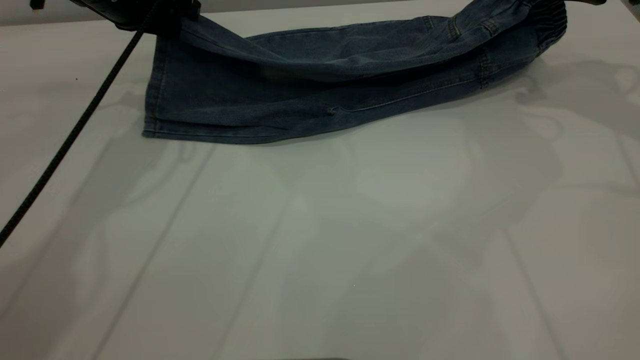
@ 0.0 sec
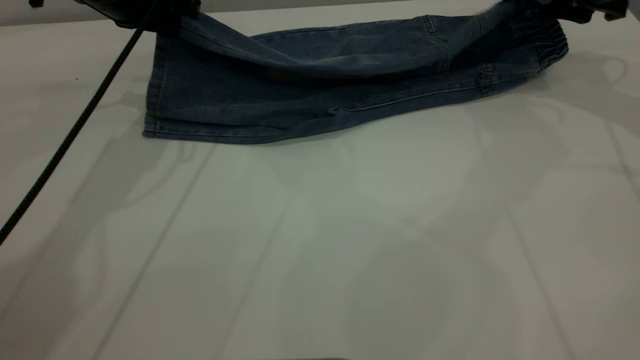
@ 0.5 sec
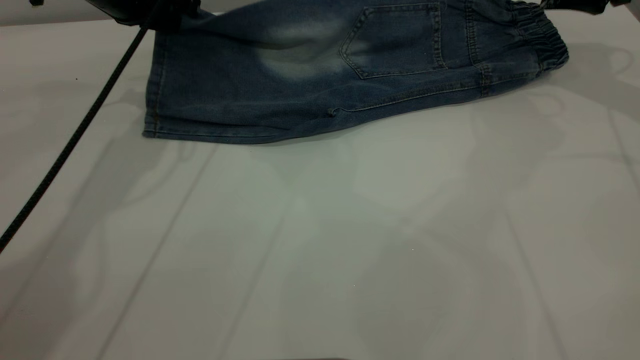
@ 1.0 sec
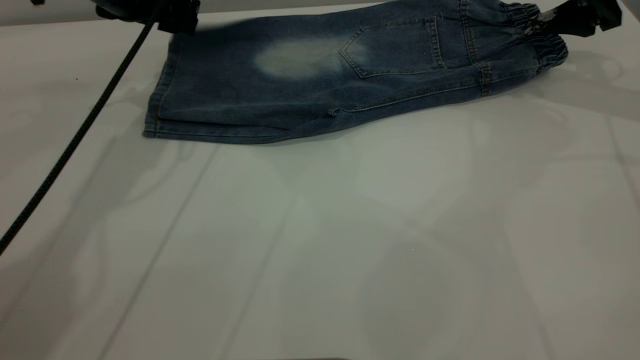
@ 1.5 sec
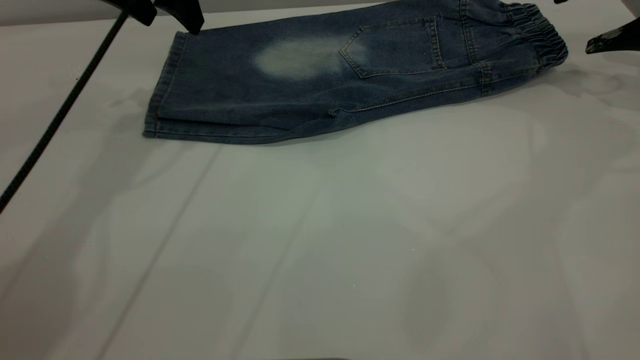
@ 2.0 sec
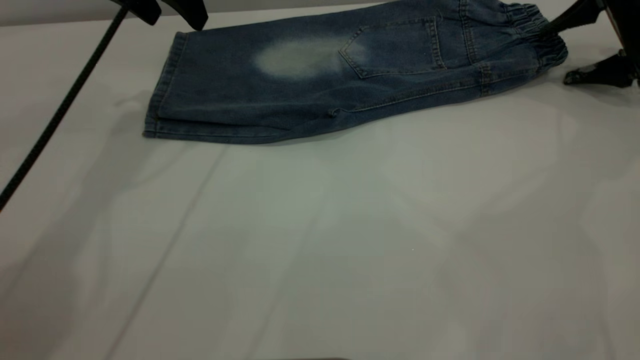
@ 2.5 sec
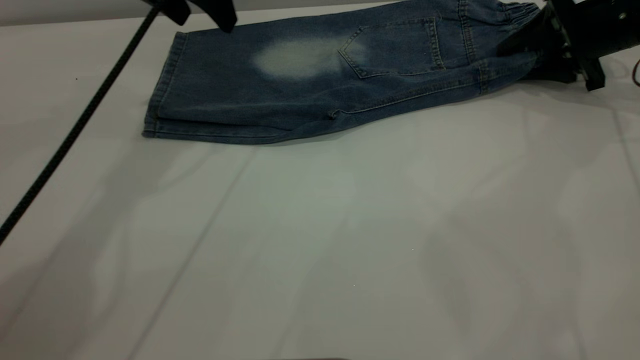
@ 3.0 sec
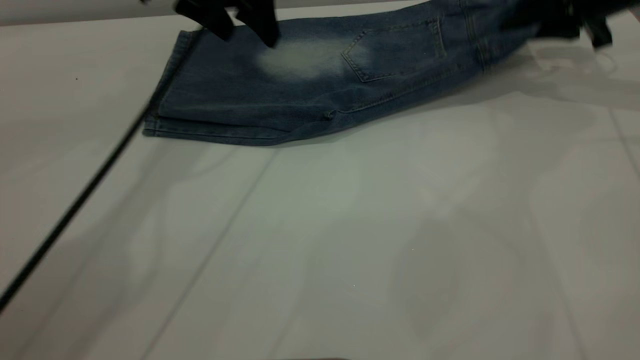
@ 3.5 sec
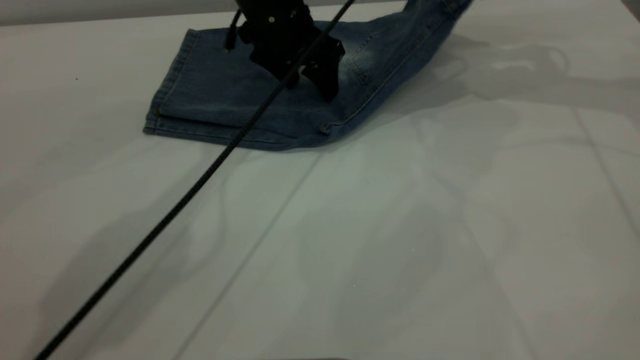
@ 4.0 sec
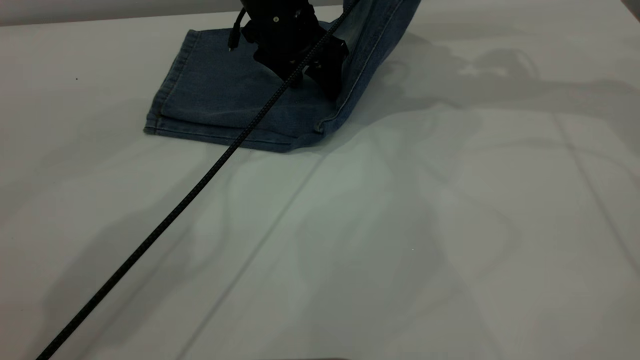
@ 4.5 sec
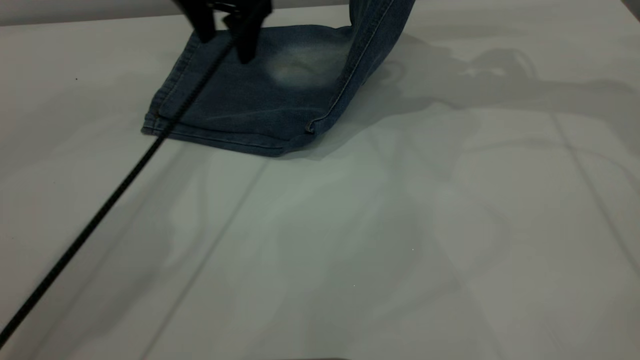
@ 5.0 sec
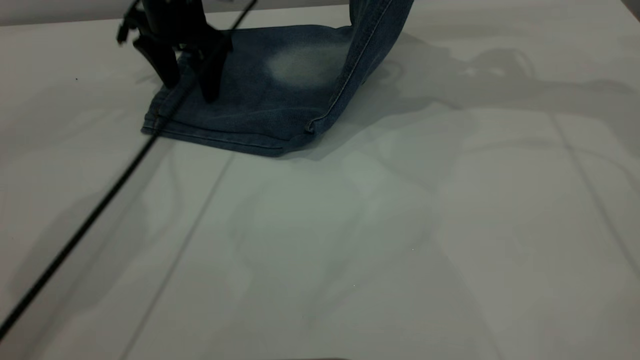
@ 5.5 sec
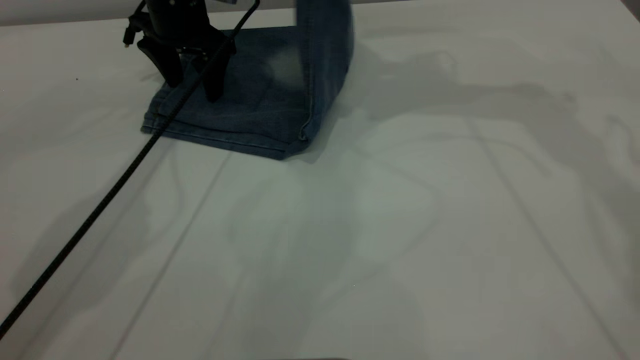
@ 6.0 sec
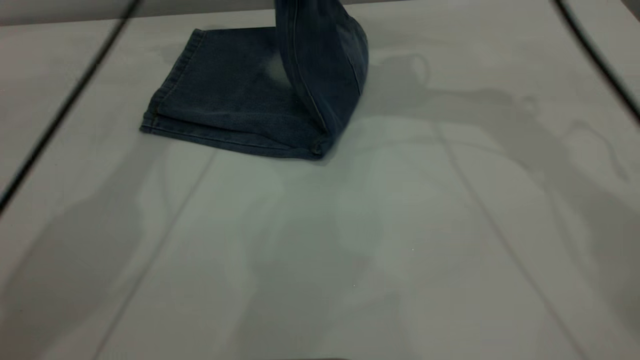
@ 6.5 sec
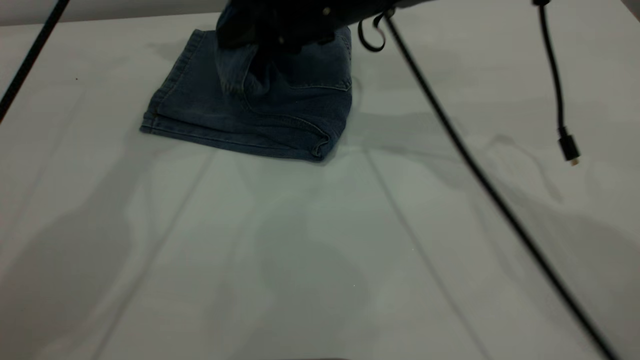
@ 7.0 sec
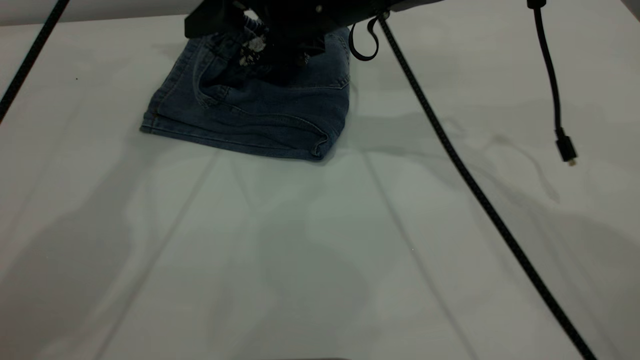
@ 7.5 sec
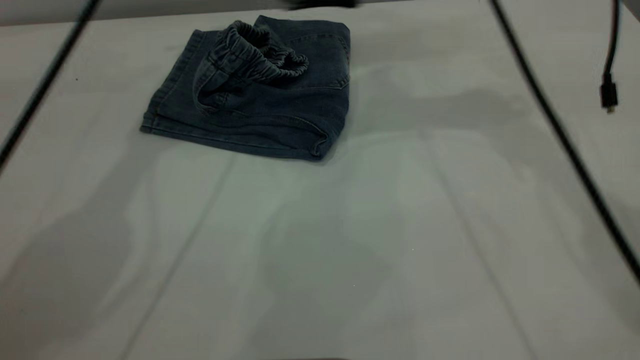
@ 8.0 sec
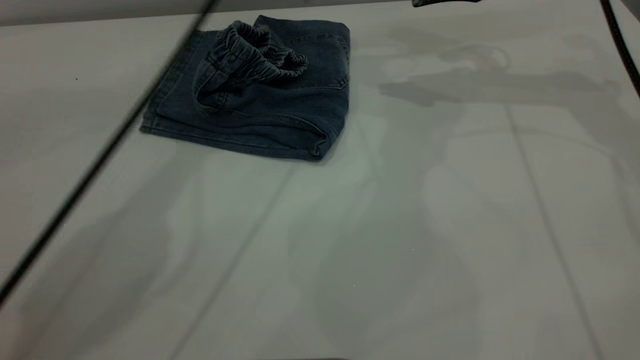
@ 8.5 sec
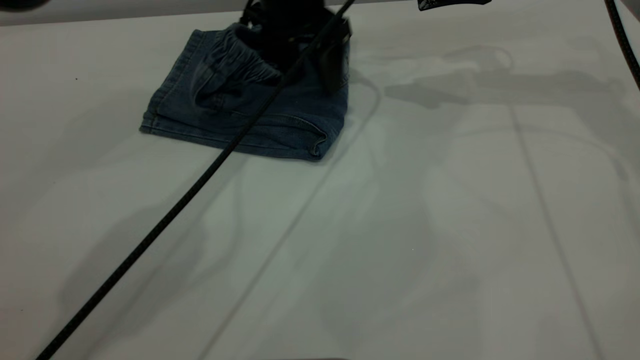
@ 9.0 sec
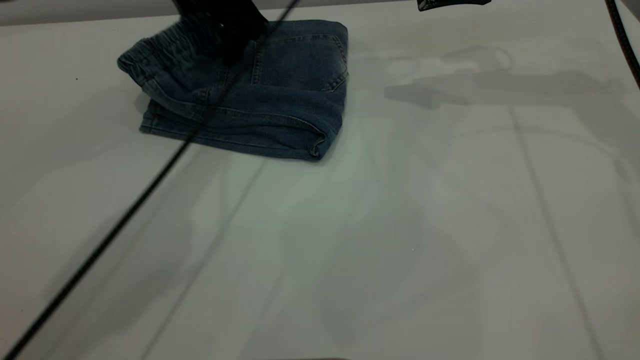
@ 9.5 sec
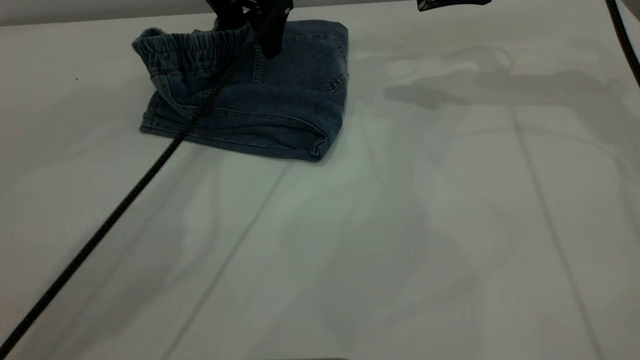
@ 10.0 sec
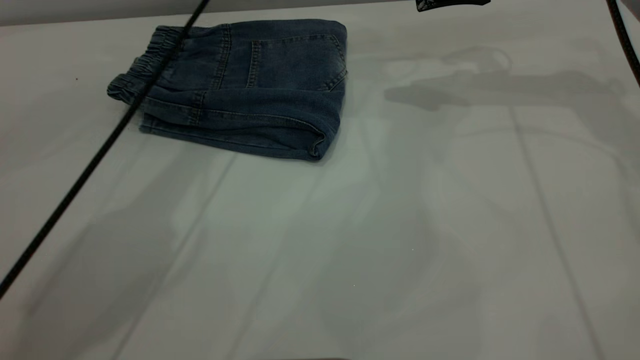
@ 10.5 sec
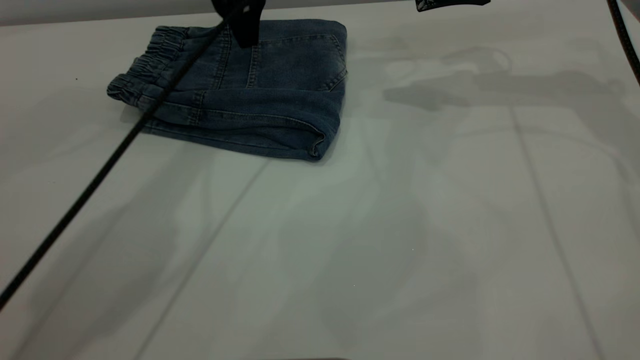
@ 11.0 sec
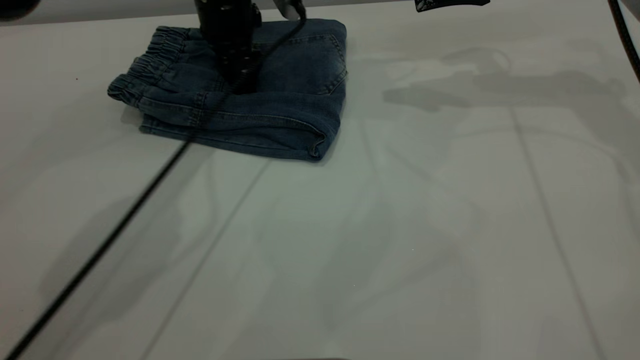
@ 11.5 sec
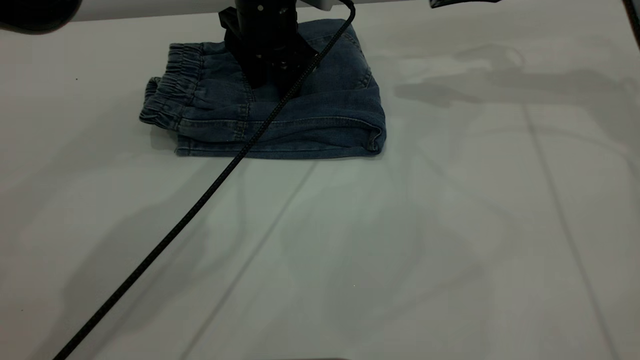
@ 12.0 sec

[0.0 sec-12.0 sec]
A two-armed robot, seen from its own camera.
Step, 0.0 sec to 3.0 sec: Fold the bottom of the pants upward.
Step, 3.5 sec to 8.5 sec: Fold your pants from right to left.
0.0 sec to 2.0 sec: The left gripper opens up. Meanwhile the right gripper shifts about 5 cm to the right, and opens its fingers.
2.0 sec to 4.0 sec: The left gripper moves to the right and downward, roughly 15 cm. Meanwhile the right gripper is displaced to the left and upward by approximately 15 cm, and closes up.
4.0 sec to 6.0 sec: The left gripper moves to the left, about 10 cm. The right gripper heads to the left and upward, covering about 15 cm.
6.0 sec to 8.0 sec: The right gripper is displaced downward by roughly 5 cm, and opens up; the left gripper shifts approximately 20 cm upward.
8.0 sec to 10.0 sec: The left gripper travels downward and to the right by approximately 15 cm. Meanwhile the right gripper is displaced to the right by approximately 10 cm.
10.0 sec to 12.0 sec: The left gripper moves downward, roughly 5 cm.

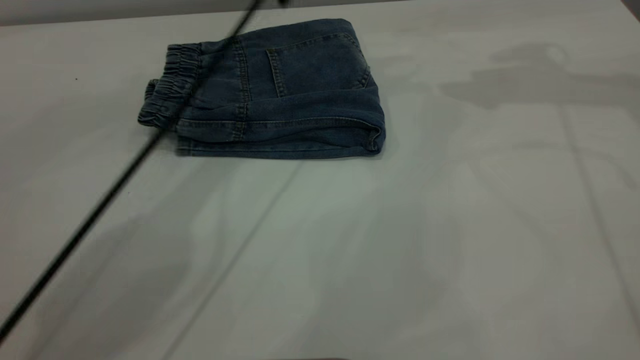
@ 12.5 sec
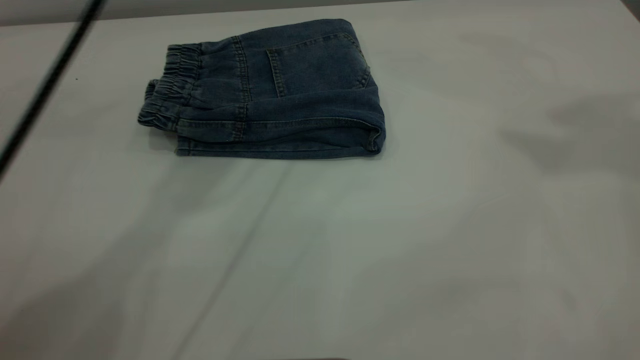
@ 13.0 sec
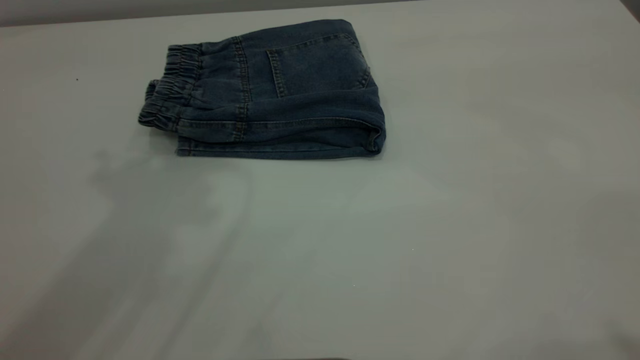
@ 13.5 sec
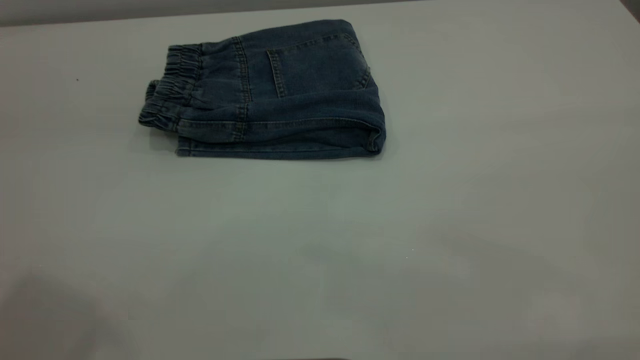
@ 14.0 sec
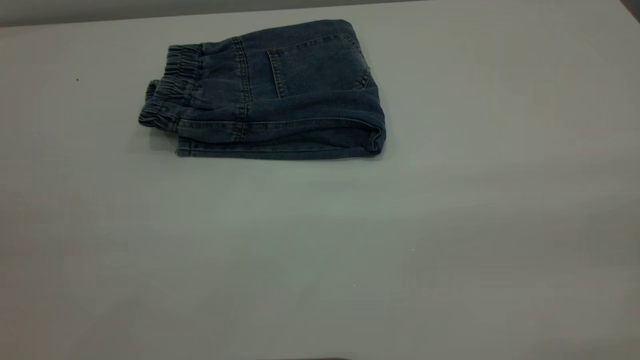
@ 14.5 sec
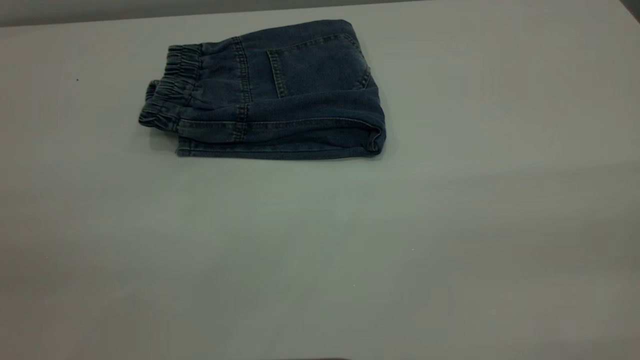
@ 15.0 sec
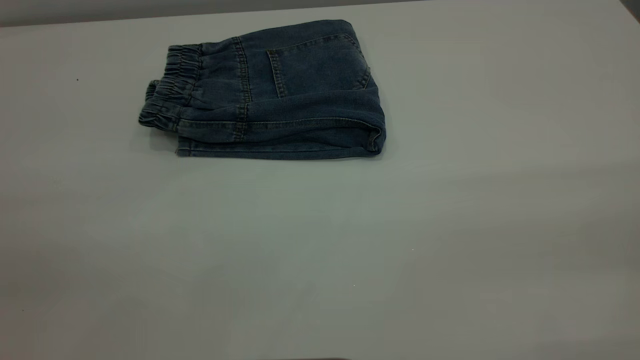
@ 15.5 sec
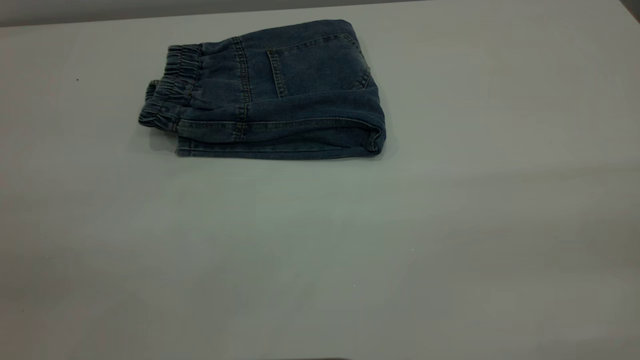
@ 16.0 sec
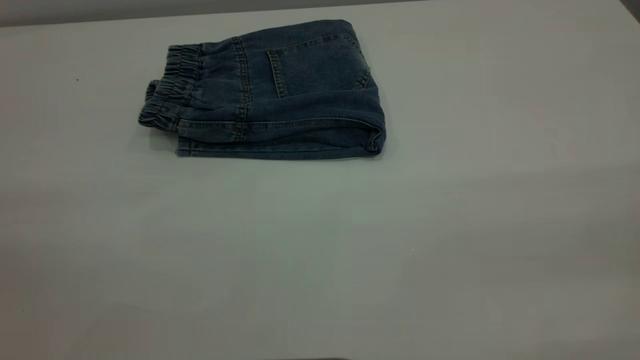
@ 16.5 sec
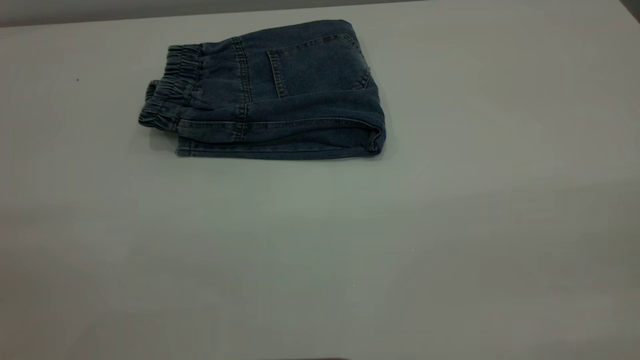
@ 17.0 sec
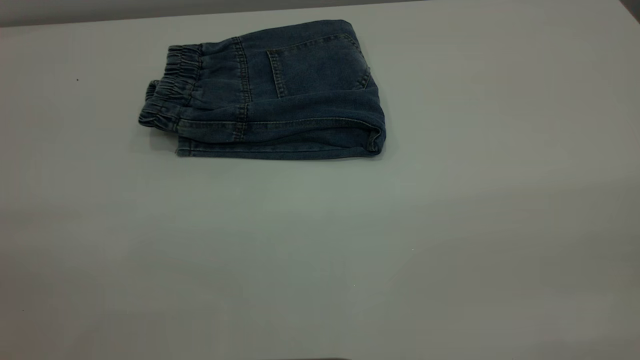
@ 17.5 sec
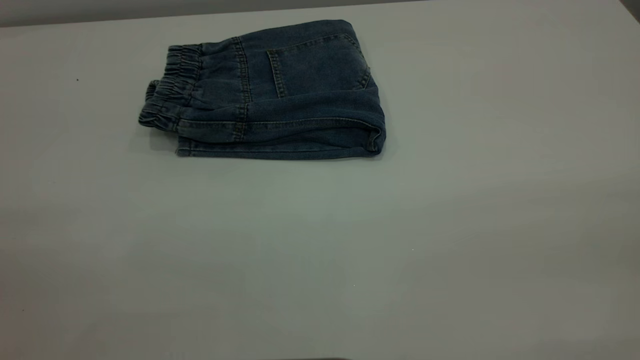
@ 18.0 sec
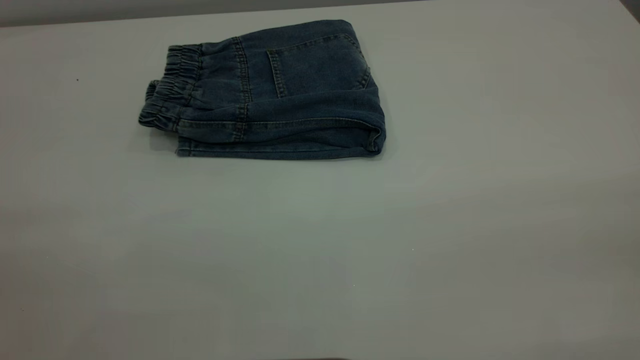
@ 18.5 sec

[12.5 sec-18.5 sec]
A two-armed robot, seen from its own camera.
12.5 sec to 14.5 sec: The left gripper heads backward and to the left, covering about 50 cm.

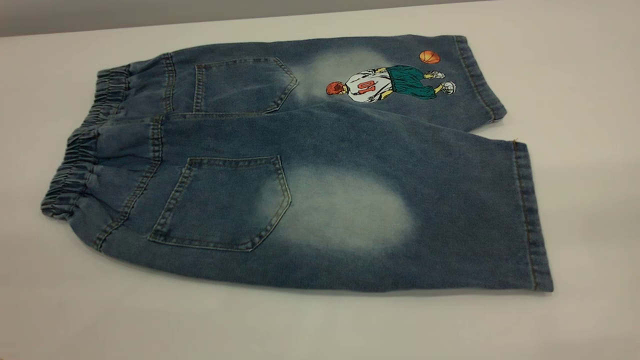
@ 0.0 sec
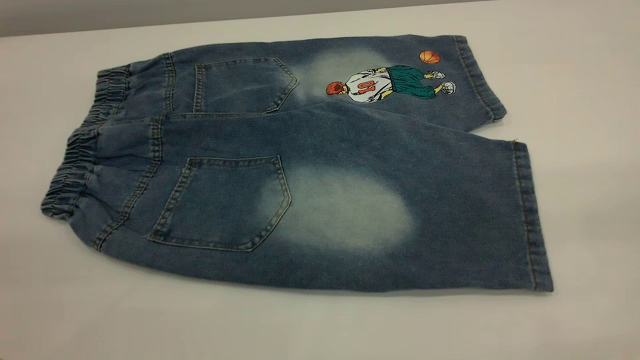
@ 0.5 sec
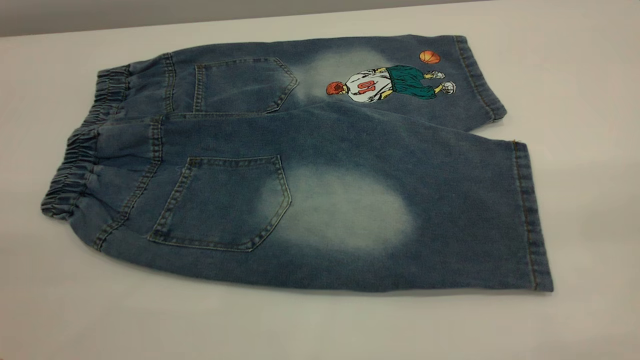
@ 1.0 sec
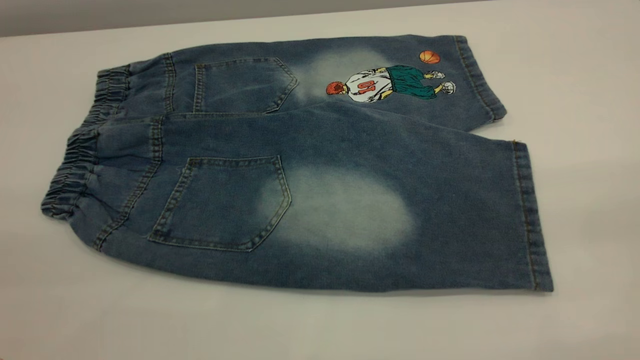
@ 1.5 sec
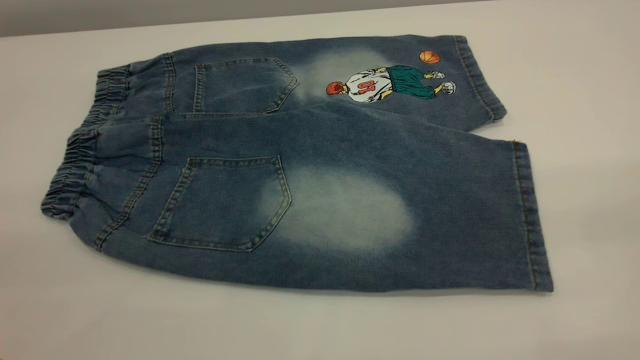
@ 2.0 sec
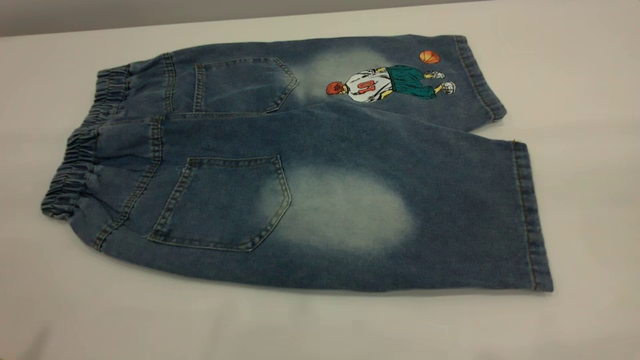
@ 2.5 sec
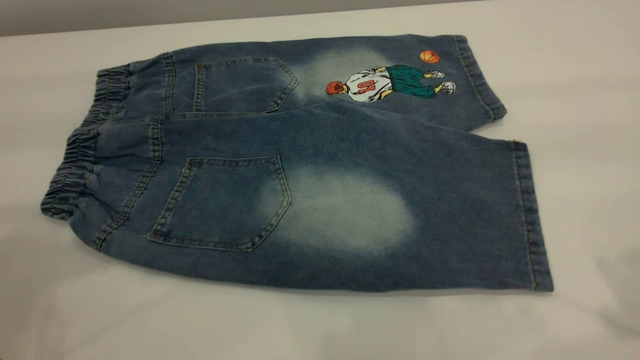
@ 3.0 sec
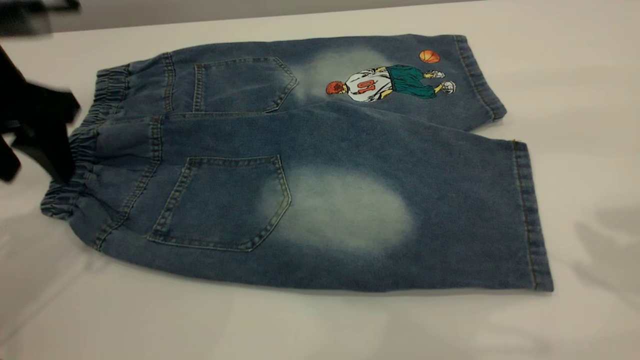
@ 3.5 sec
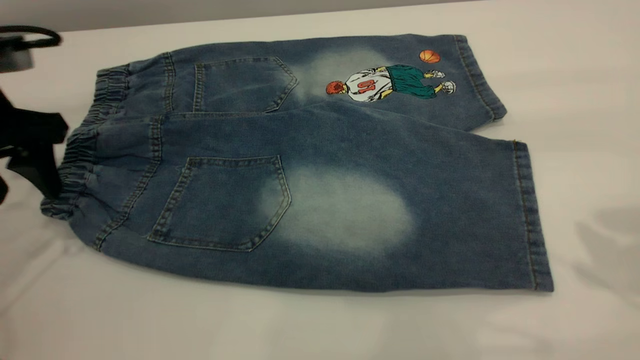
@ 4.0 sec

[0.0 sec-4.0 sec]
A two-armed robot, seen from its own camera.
0.0 sec to 2.0 sec: Neither gripper changes place.
2.0 sec to 4.0 sec: The left gripper travels forward and downward by approximately 35 cm.
